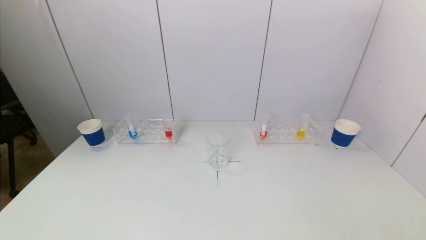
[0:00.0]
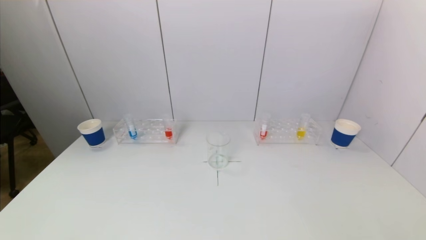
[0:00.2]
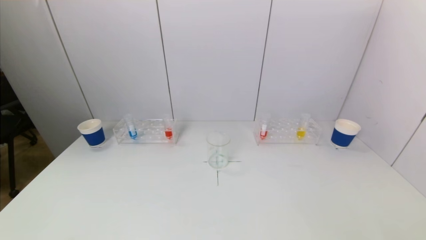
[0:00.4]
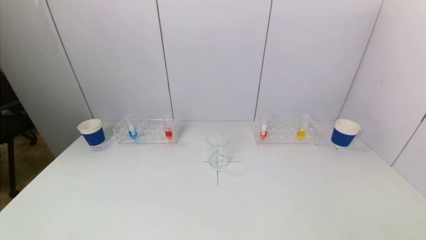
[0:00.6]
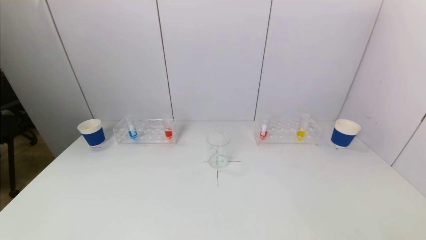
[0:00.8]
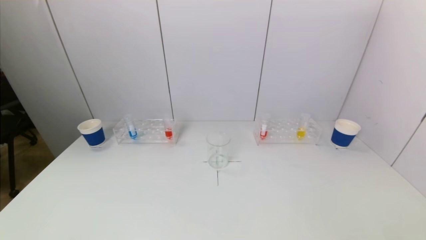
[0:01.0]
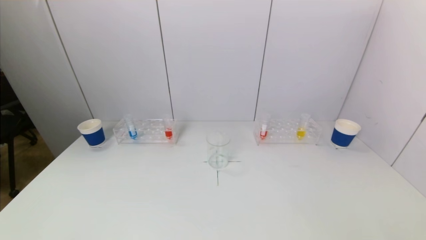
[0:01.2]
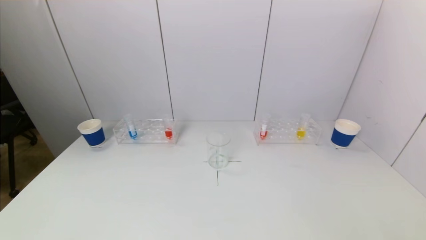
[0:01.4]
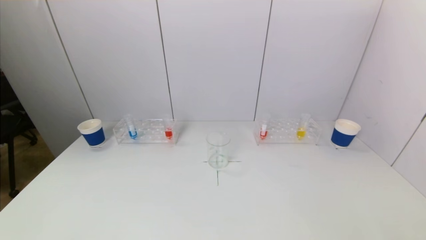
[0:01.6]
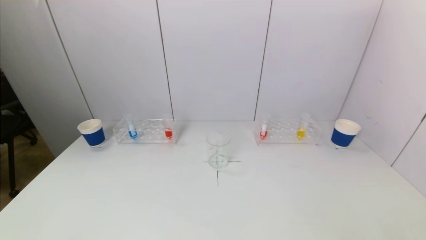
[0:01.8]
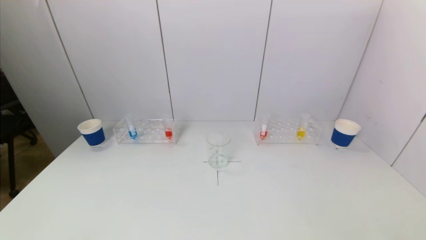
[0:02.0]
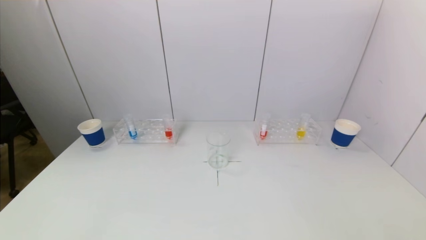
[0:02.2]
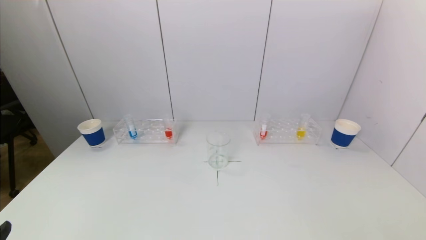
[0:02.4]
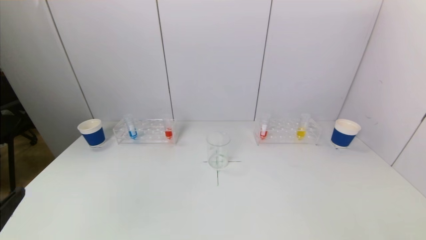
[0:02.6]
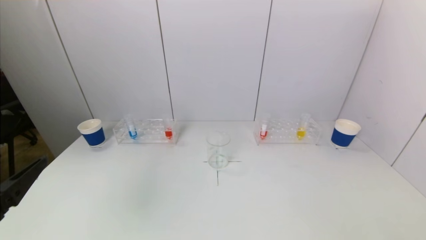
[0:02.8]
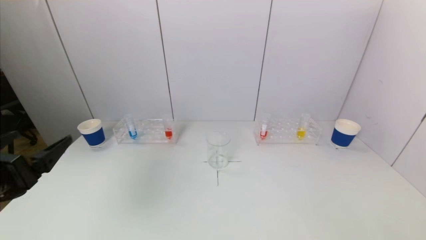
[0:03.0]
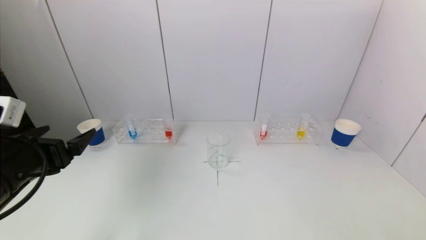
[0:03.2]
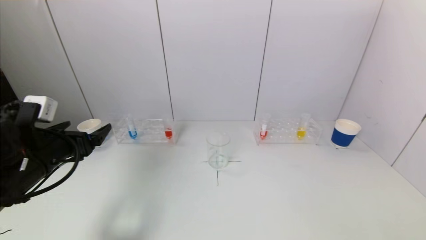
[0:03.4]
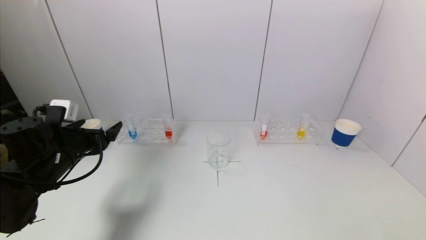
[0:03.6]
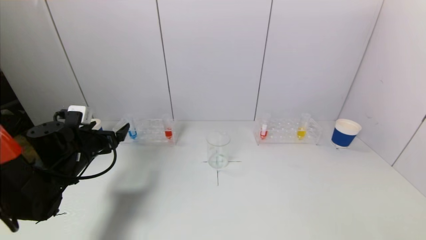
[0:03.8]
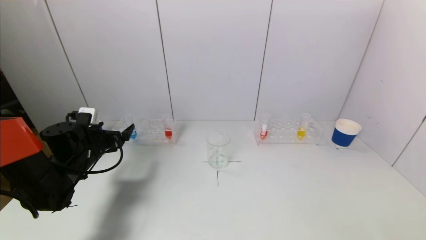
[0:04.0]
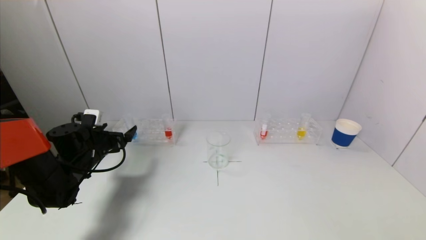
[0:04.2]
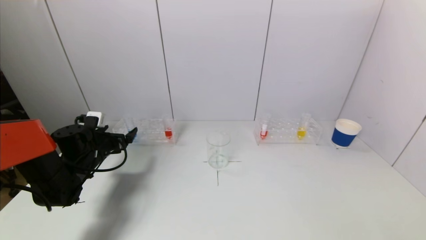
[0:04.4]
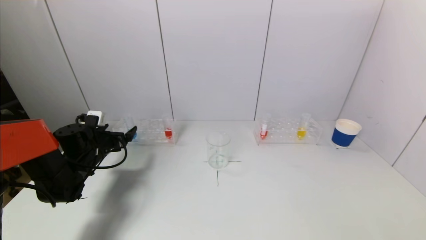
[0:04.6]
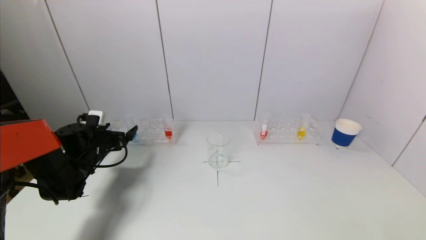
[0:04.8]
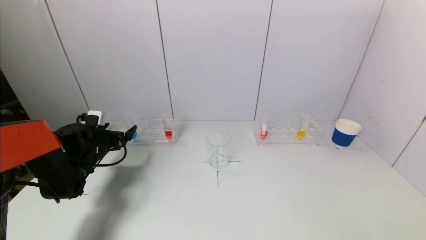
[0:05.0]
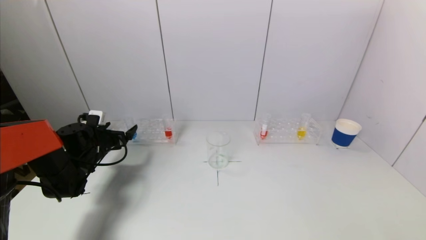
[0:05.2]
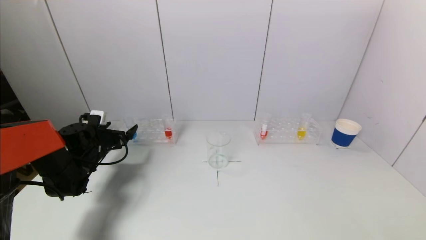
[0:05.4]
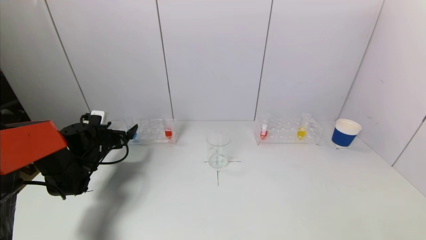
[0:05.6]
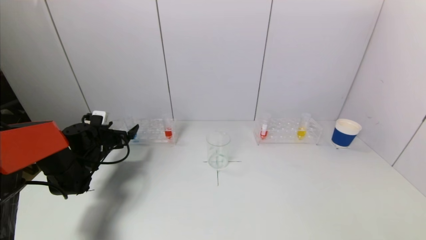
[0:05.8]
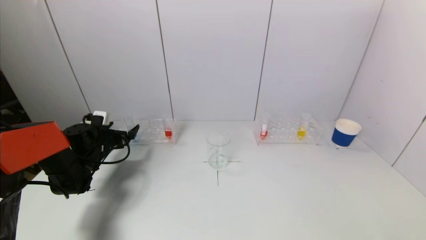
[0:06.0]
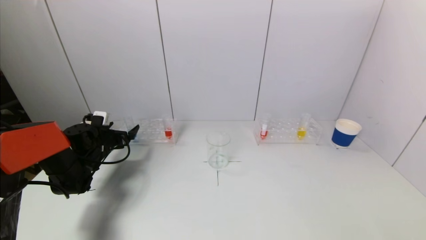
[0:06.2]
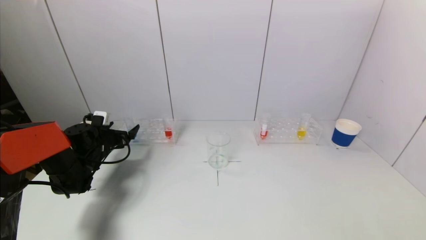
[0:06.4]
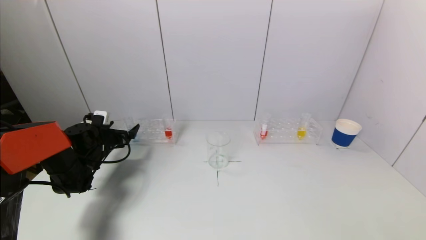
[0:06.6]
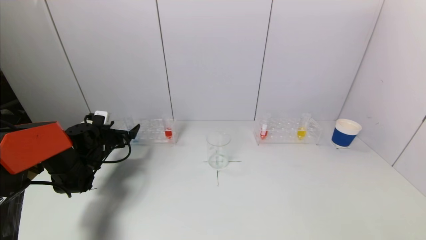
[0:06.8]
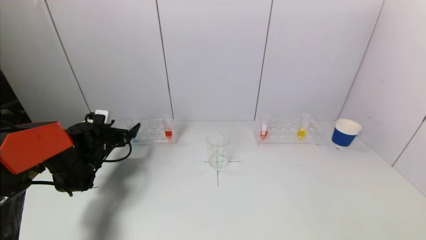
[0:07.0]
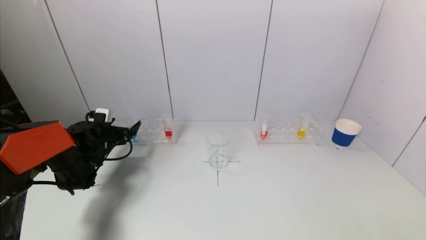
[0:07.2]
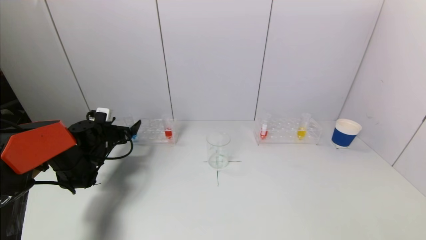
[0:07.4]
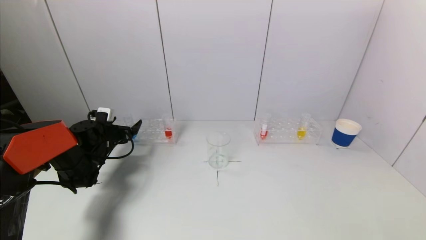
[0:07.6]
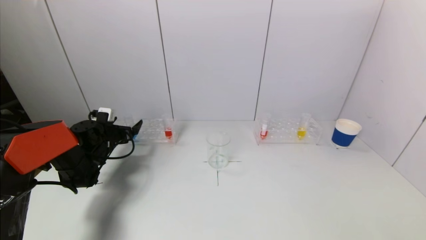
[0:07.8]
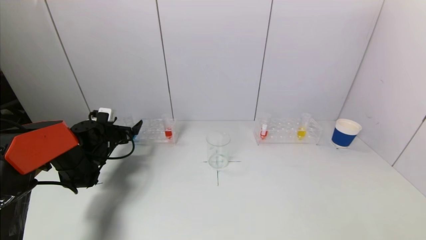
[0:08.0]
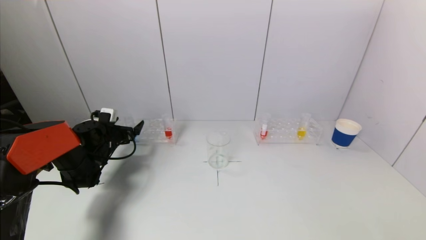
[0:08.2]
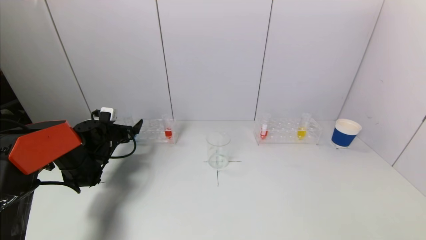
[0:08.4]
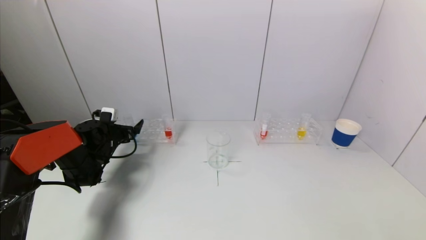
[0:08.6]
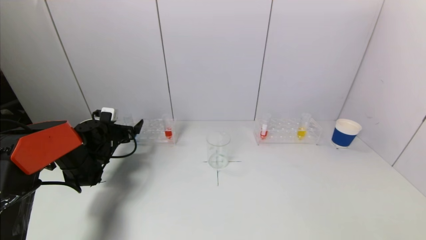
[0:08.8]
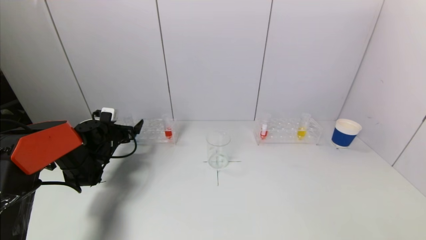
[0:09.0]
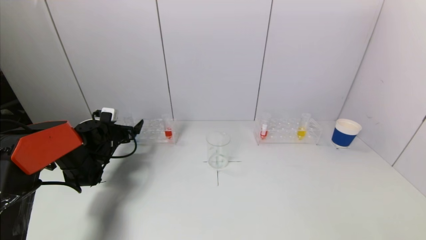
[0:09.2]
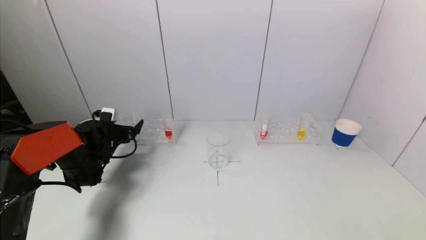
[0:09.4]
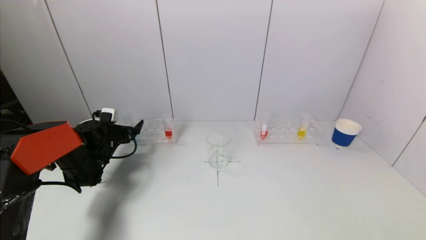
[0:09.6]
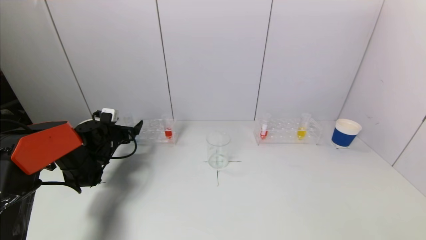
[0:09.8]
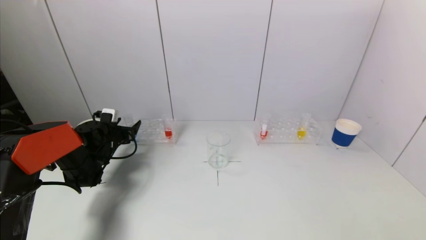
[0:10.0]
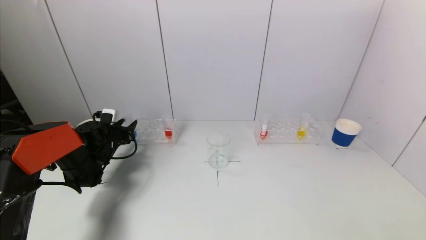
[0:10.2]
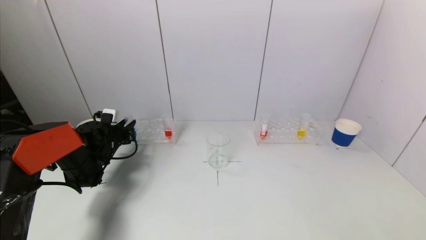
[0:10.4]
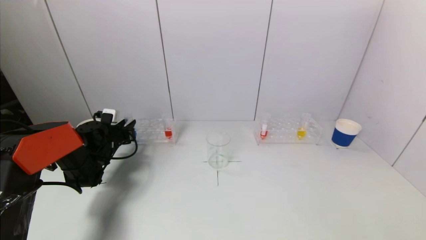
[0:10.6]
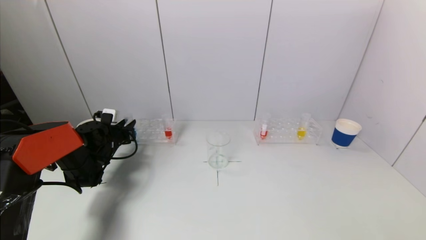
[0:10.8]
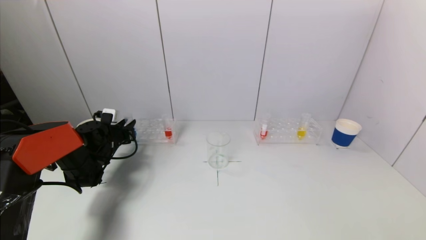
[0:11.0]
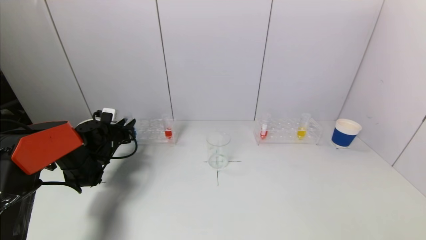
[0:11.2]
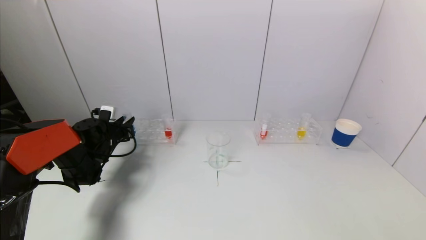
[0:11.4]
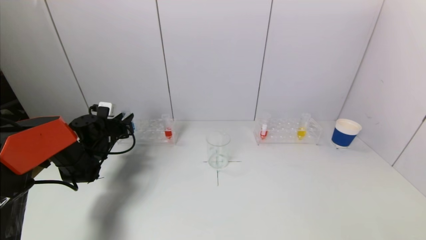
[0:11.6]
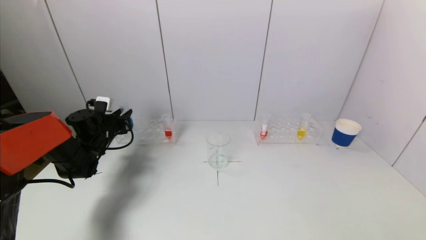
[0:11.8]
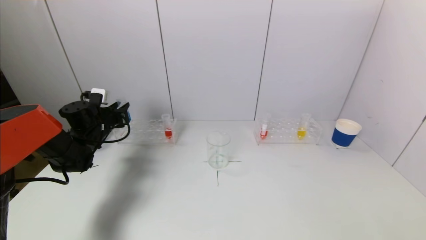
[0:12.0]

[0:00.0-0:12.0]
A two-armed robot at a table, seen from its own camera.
Task of the whole recording: pick up a test tube with pigment on left test tube rack and a test tube with pigment on right test tube rack by grippers and pour them into the beaker.
Step, 0:00.0 to 0:10.6: Grasp the blue reagent with the left gripper.
0:00.0 to 0:01.6: The two grippers keep their place.
0:01.6 to 0:03.0: The left gripper travels forward and upward by roughly 20 cm.
0:03.0 to 0:04.4: The left gripper goes some 25 cm forward and downward.
0:04.4 to 0:06.0: The left gripper shifts by approximately 5 cm.
0:06.0 to 0:07.6: The grippers stay close to where they were, moving slightly.
0:07.6 to 0:09.0: Both grippers stay about where they are.
0:09.0 to 0:10.4: The left gripper closes its fingers.
0:10.4 to 0:12.0: The left gripper shifts some 5 cm upward.

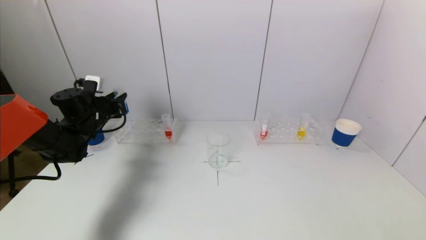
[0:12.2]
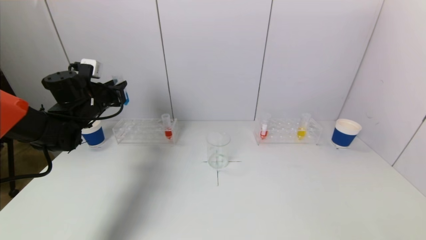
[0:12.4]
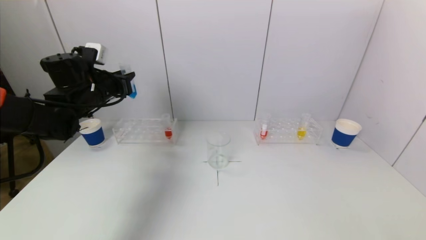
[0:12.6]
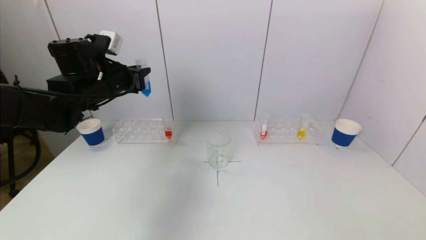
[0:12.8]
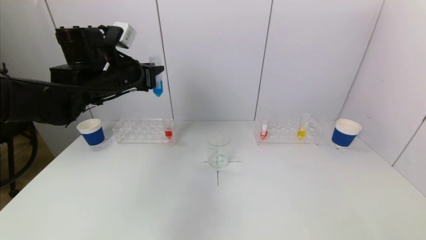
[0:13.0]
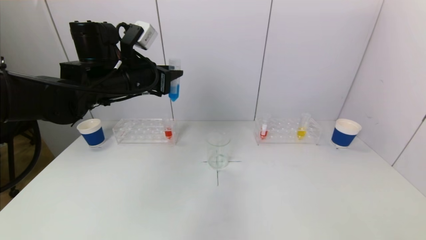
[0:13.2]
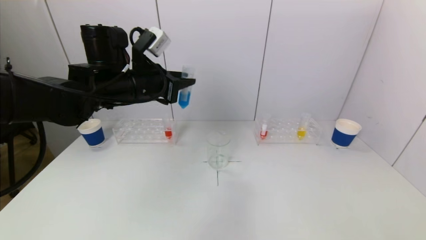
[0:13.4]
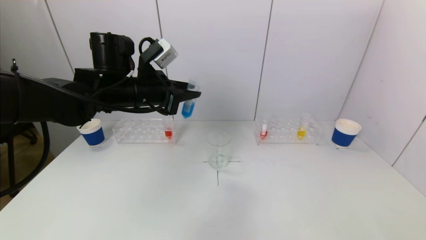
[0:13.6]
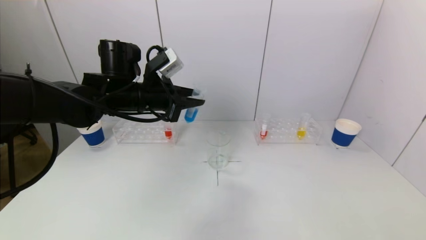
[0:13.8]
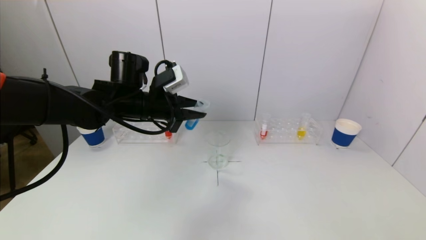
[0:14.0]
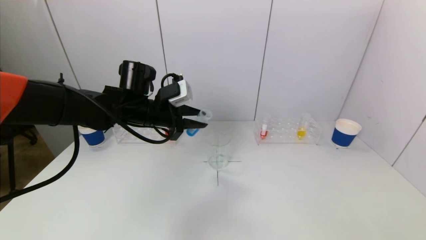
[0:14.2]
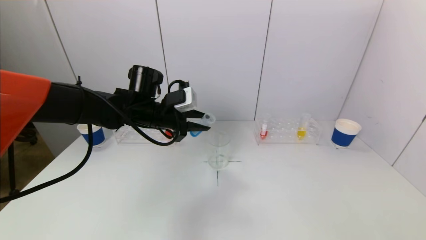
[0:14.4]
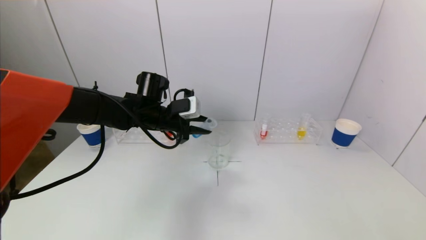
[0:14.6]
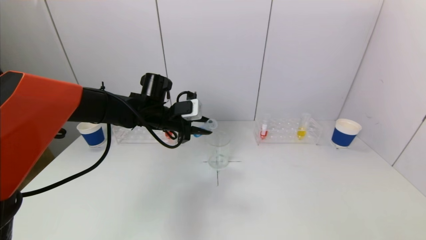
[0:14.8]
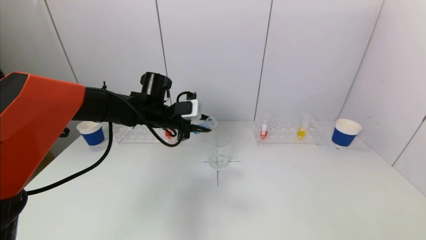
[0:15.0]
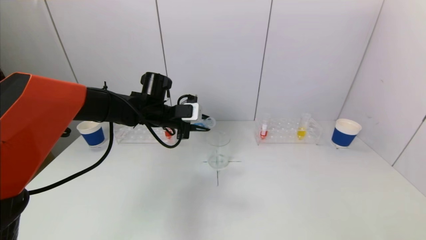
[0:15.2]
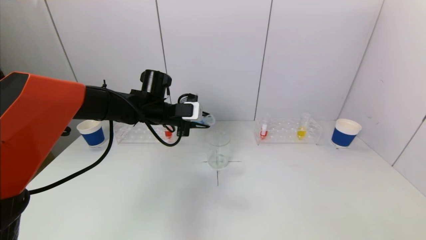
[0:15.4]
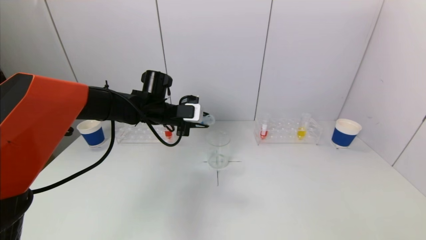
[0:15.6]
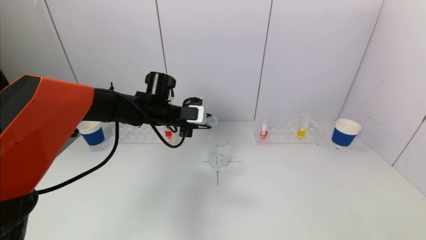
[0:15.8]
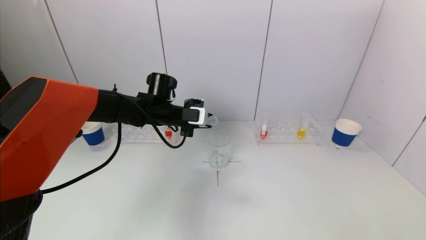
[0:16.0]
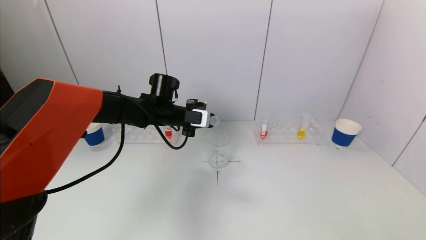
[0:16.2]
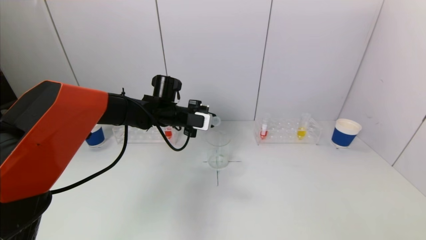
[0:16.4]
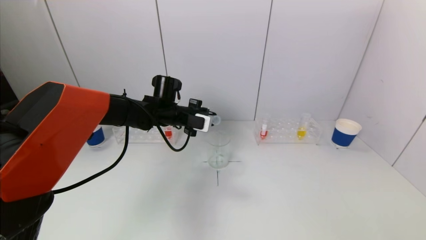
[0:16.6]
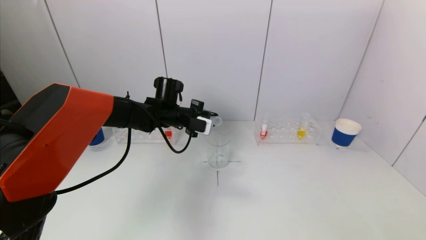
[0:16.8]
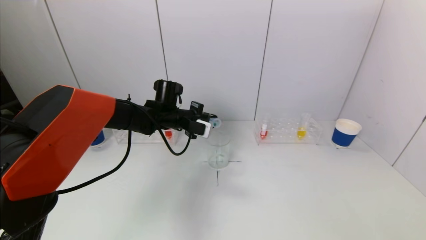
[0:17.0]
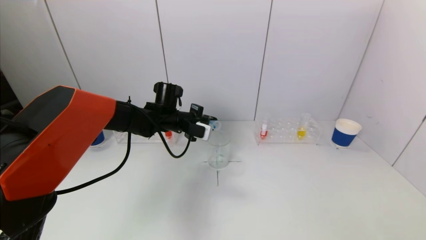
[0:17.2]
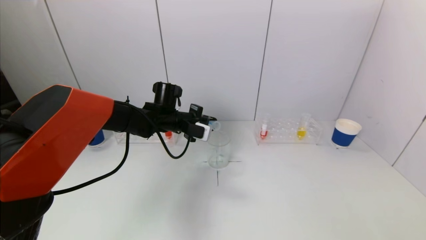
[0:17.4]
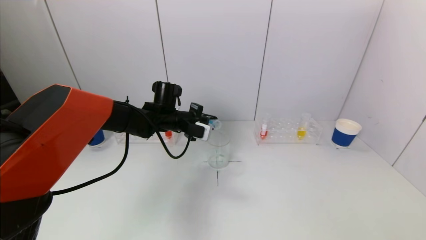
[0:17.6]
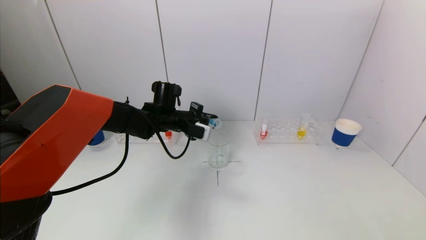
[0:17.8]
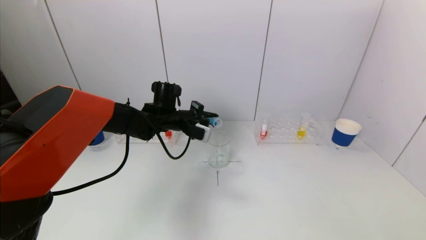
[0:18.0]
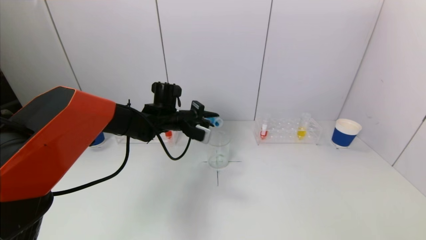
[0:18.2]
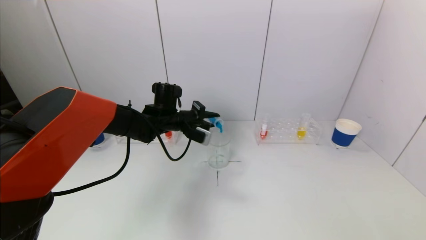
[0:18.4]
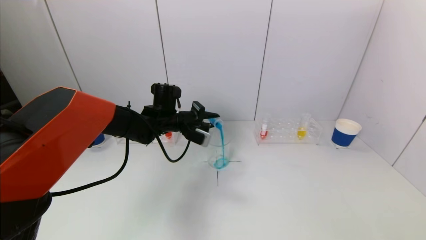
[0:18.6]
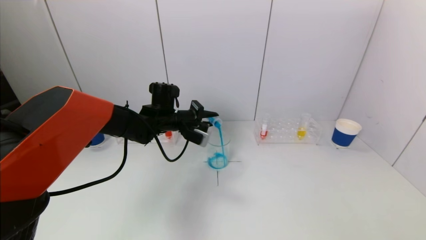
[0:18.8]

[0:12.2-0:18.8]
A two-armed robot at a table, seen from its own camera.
Task of the whole recording: pick up a test tube with pigment on left test tube rack and a test tube with pigment on right test tube rack by grippers and pour them into the beaker.
0:12.2 to 0:13.8: The left gripper heads to the right, upward and backward, covering roughly 20 cm.
0:13.8 to 0:15.4: The left gripper heads downward and forward, covering roughly 10 cm.
0:17.2 to 0:18.8: The grippers make only small movements.
